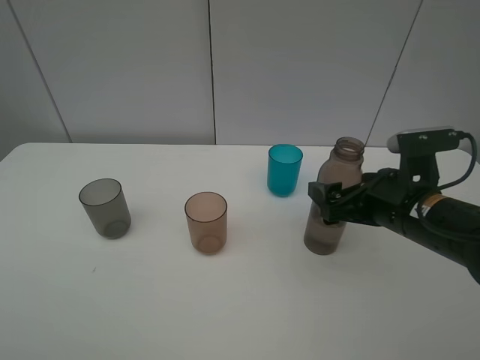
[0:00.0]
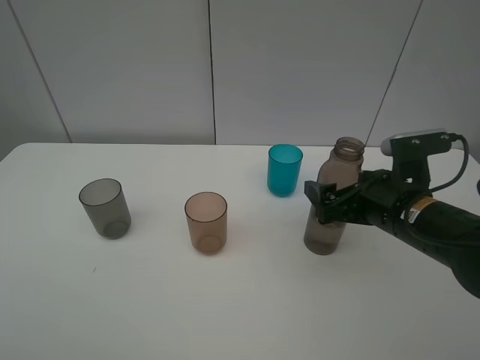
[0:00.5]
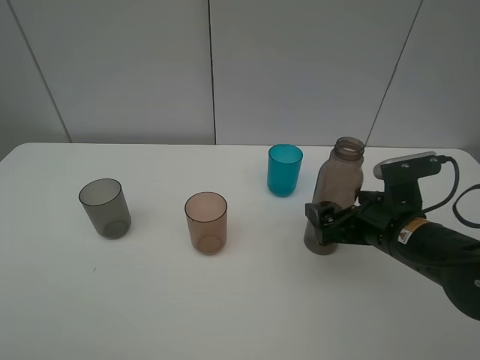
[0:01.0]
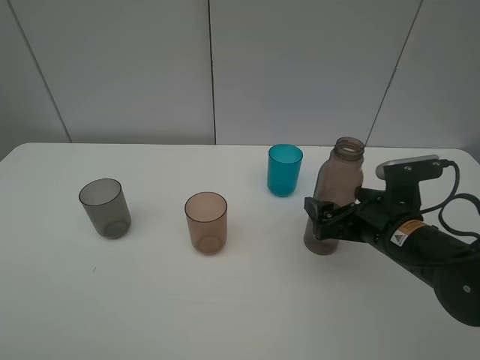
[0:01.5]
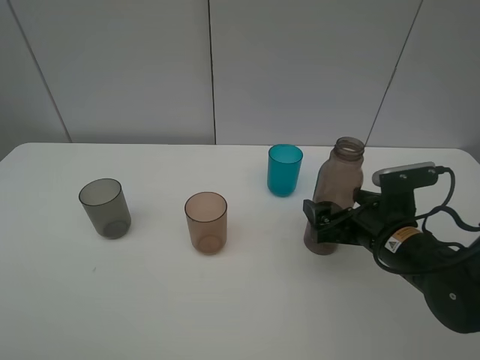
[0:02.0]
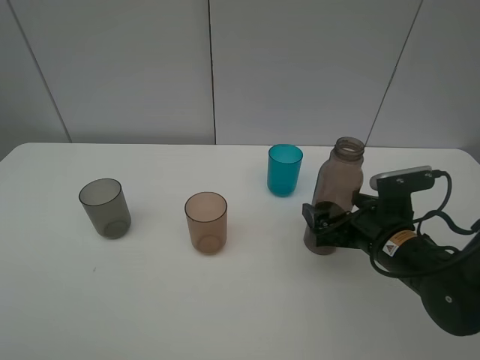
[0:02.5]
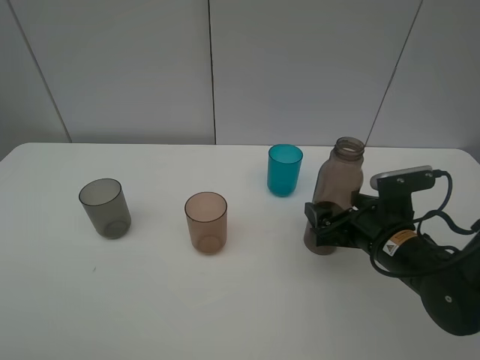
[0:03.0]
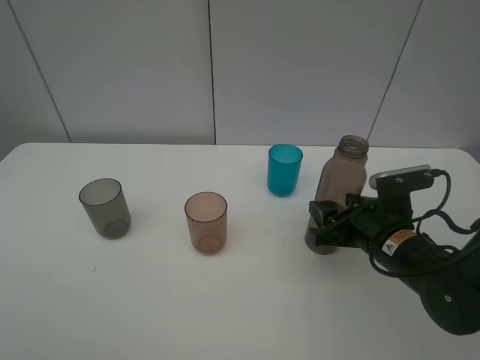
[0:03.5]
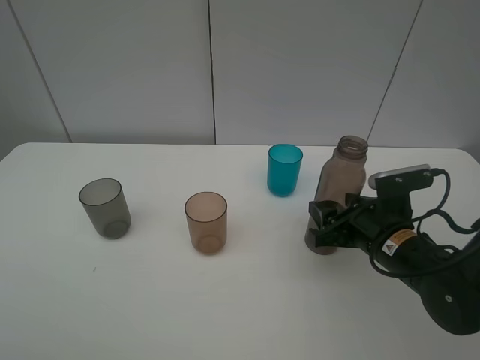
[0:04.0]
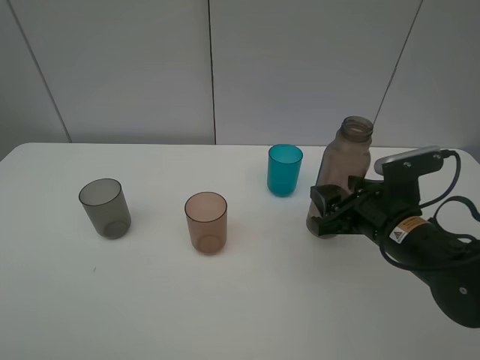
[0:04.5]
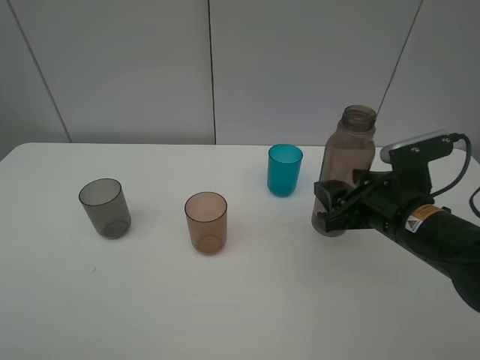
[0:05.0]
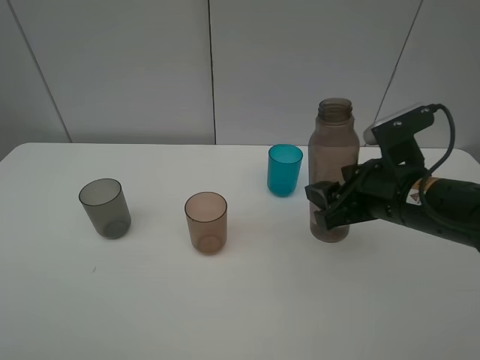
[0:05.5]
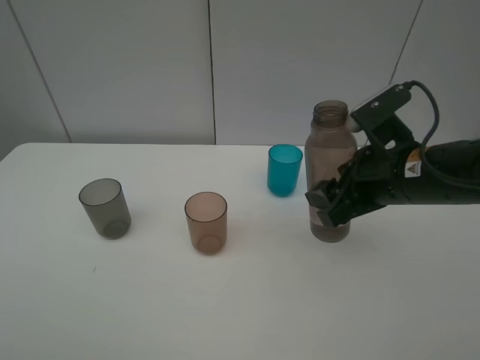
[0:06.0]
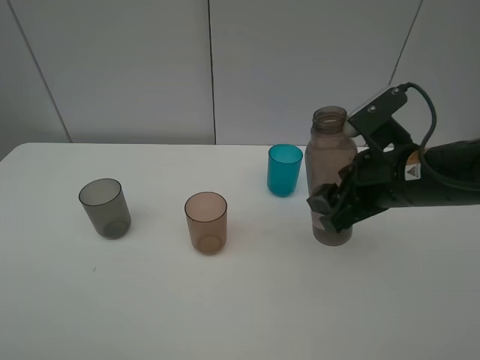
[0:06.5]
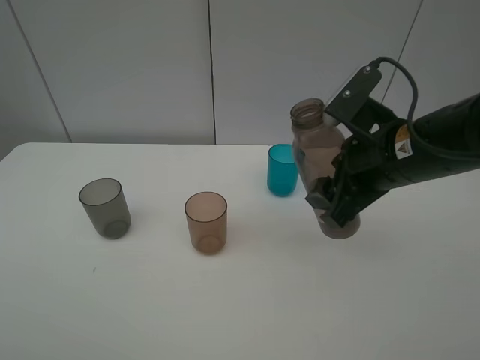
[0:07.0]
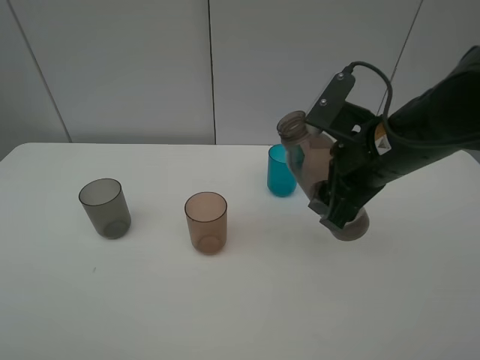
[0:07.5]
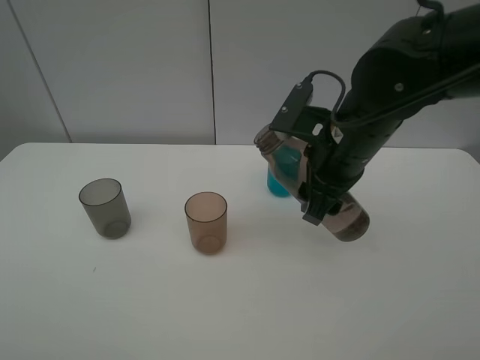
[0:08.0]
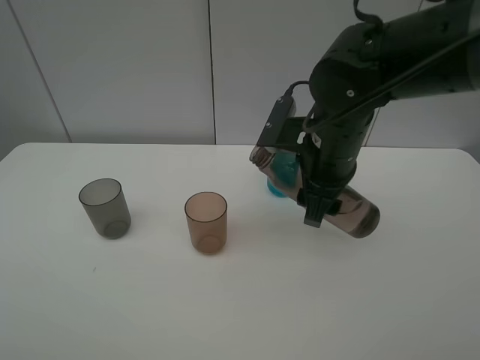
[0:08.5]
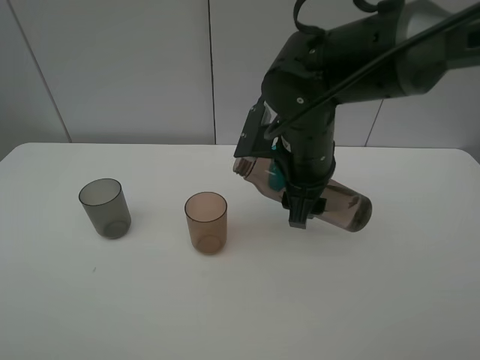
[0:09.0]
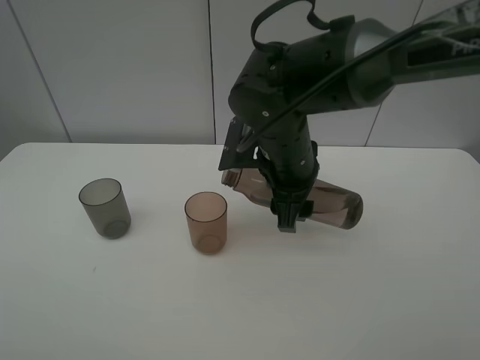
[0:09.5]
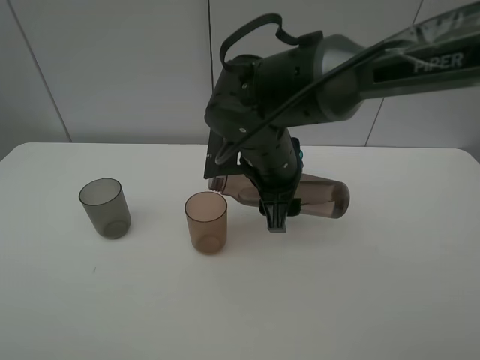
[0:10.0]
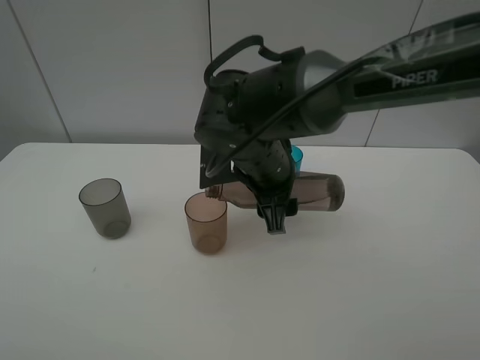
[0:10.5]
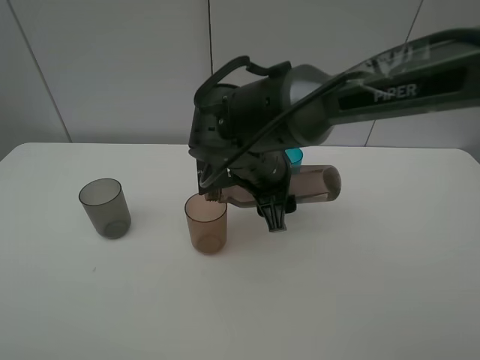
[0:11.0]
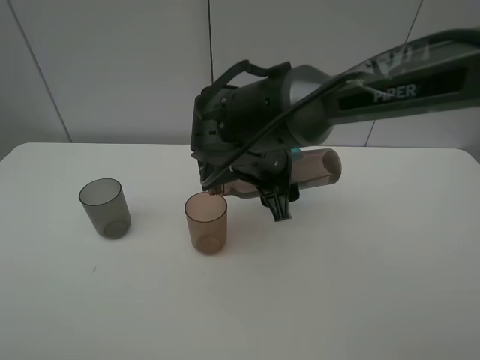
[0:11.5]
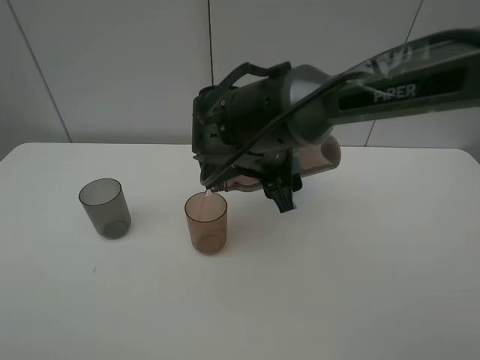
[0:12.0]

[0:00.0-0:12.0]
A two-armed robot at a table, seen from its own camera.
Task of the whole recording: pick up the bottle filled with water and pour water into the middle cup of the three cups.
Step, 0:00.0 to 0:03.5: Grasp the brown bottle with the right gripper.
Step, 0:04.0 to 0:11.5: Pour water from transparent bottle to red cup with the right gripper.
0:00.0 to 0:02.0: The right gripper is displaced downward by about 5 cm.
0:02.0 to 0:04.0: The right gripper closes up.
0:04.0 to 0:06.0: The right gripper goes approximately 10 cm upward.
0:06.0 to 0:08.0: The right gripper shifts some 5 cm to the left.
0:08.0 to 0:10.0: The right gripper moves to the left, about 10 cm.

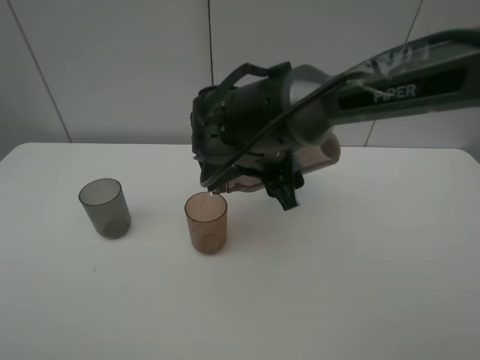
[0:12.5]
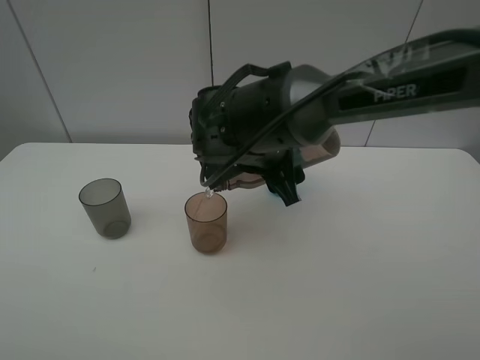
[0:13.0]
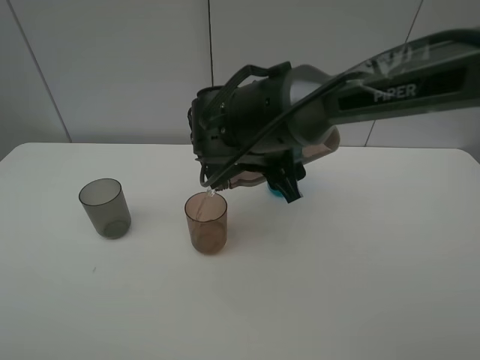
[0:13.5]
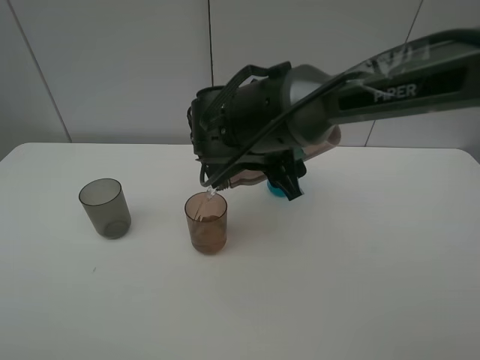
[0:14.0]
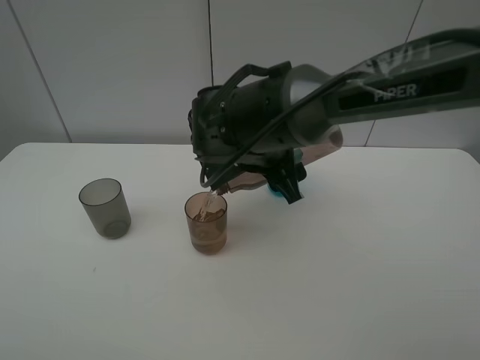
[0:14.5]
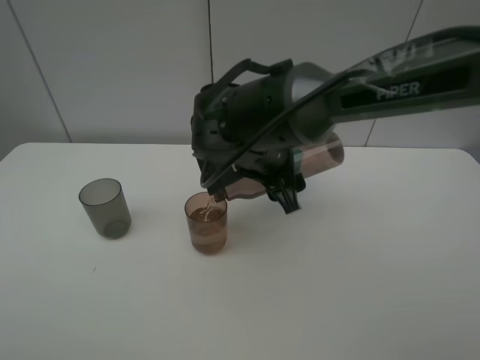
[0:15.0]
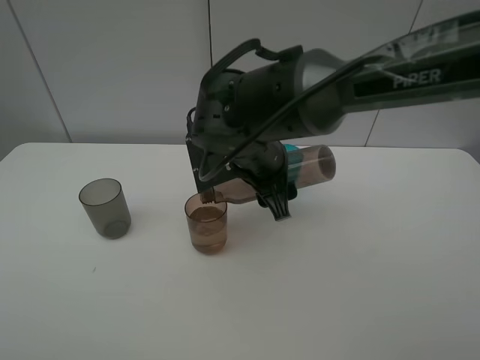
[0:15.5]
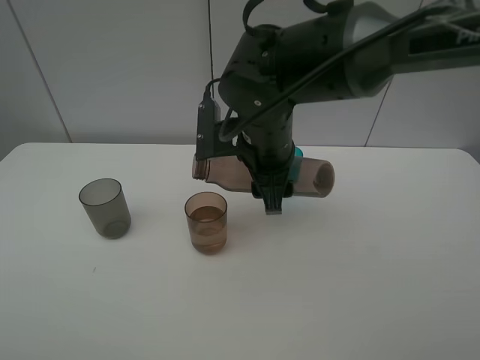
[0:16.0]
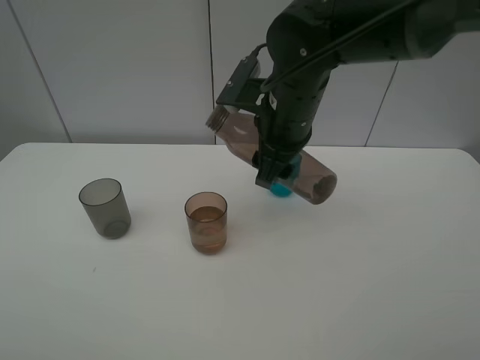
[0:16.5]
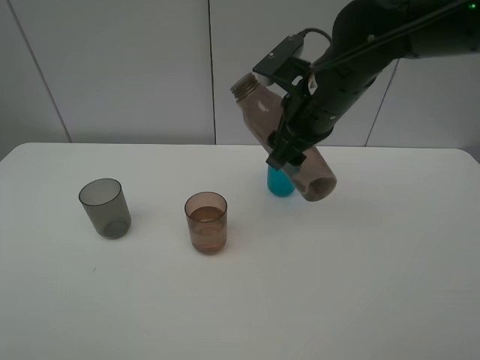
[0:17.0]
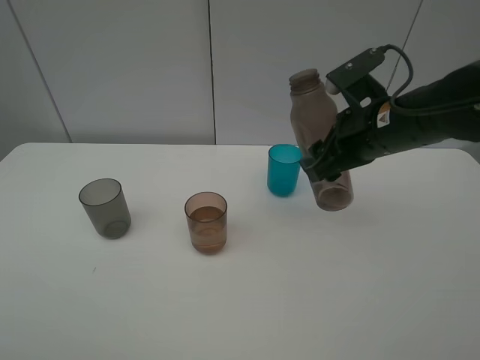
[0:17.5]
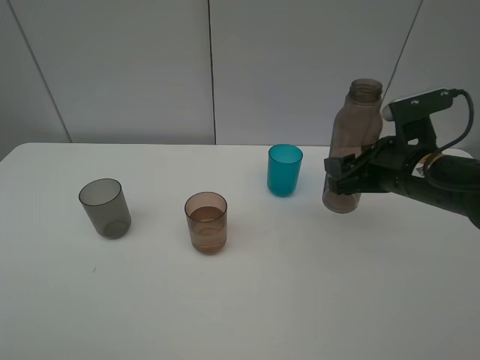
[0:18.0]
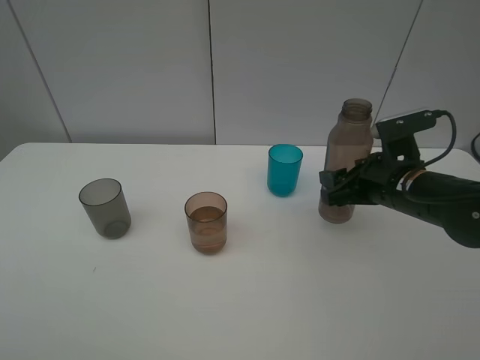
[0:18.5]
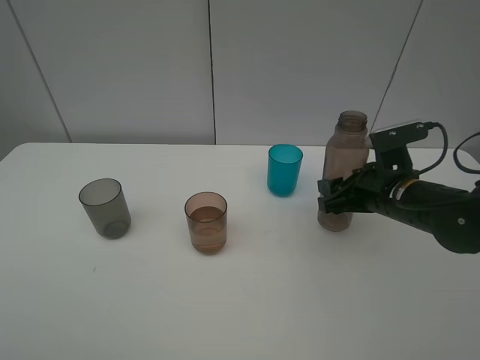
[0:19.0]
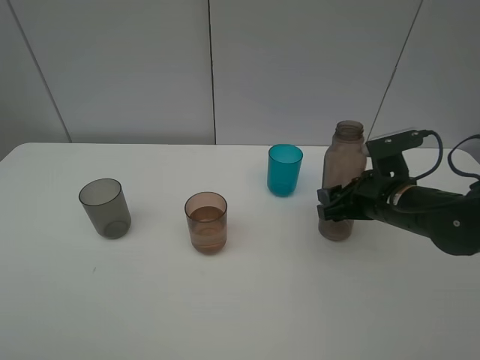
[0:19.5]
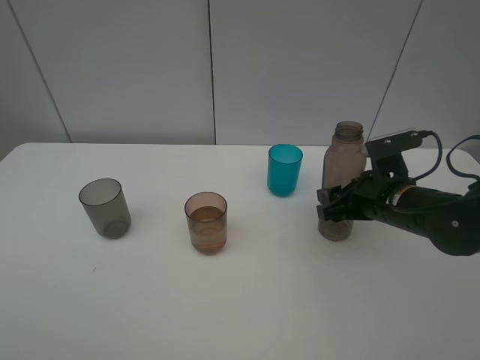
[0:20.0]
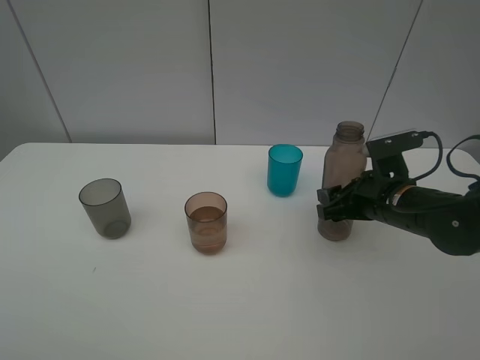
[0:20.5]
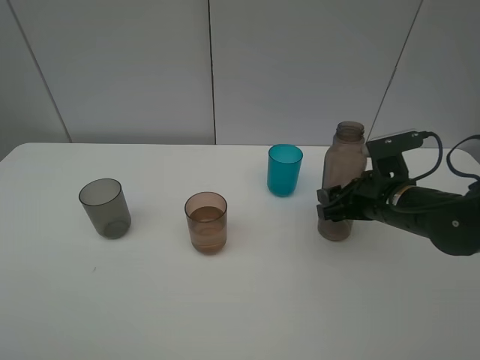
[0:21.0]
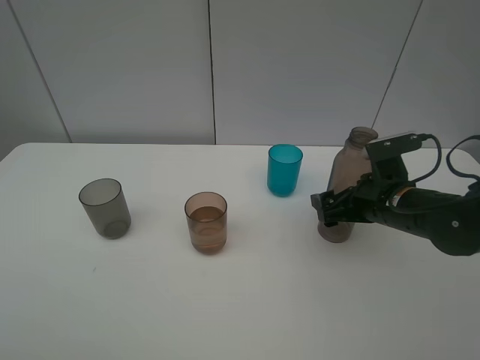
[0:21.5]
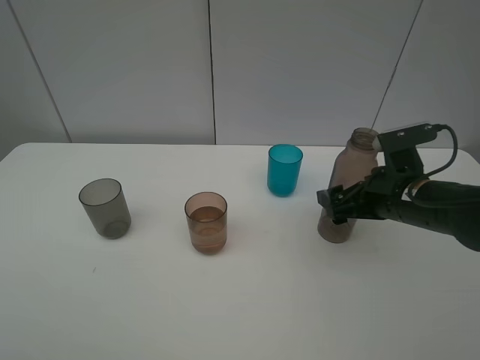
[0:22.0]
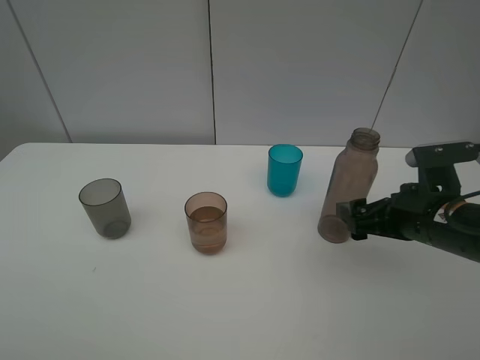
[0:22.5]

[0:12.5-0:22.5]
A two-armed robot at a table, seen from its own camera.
Task of the whole recording: pick up the bottle filled with water and pour water into the middle cup of the three cups.
0:12.5 to 0:14.5: There are only small adjustments of the grippers.
0:14.5 to 0:16.5: The right gripper moves upward, approximately 5 cm.
0:16.5 to 0:18.5: The right gripper heads to the right and downward, covering some 20 cm.
0:18.5 to 0:20.5: The grippers stay close to where they were, moving slightly.
0:20.5 to 0:22.5: The right gripper is displaced backward by approximately 5 cm, and opens up.

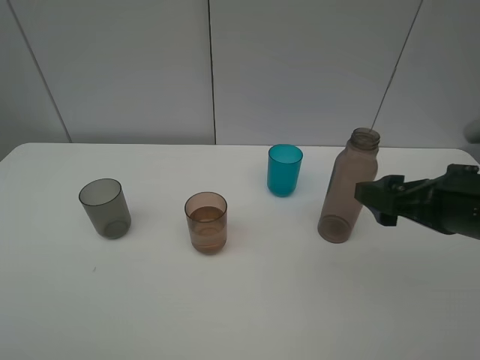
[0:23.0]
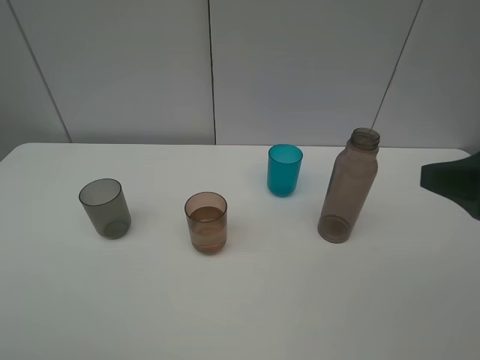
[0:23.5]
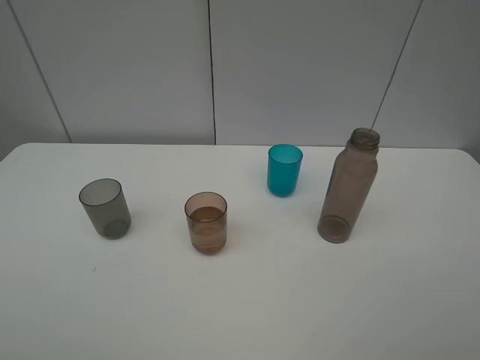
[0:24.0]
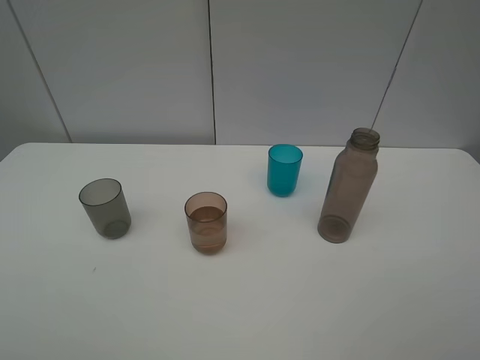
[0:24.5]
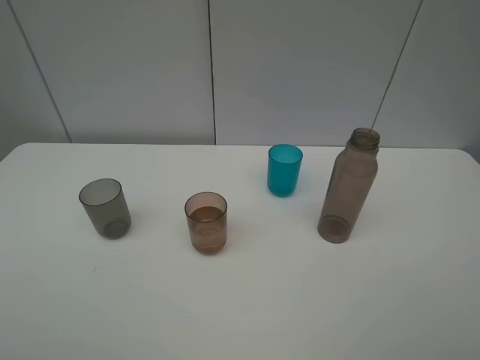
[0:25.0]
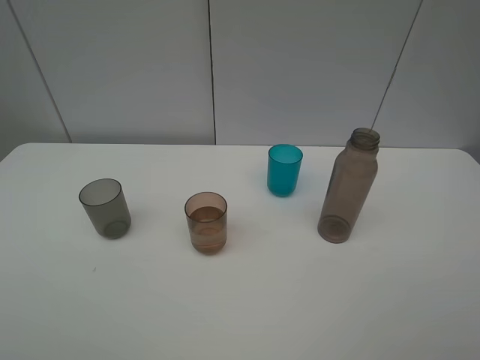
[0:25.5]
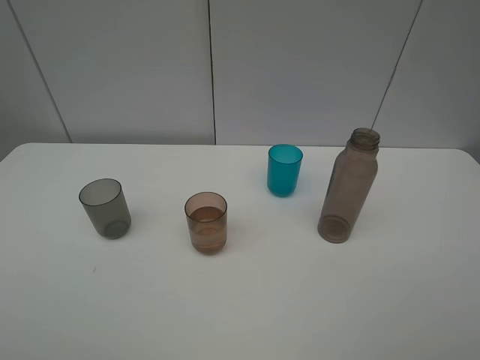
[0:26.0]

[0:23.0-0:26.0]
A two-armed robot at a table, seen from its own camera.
Task of the whole recording: pick up the bottle filled with water and pour water into the middle cup of the three cups.
0:23.0 to 0:24.5: The right gripper travels backward by approximately 20 cm.
